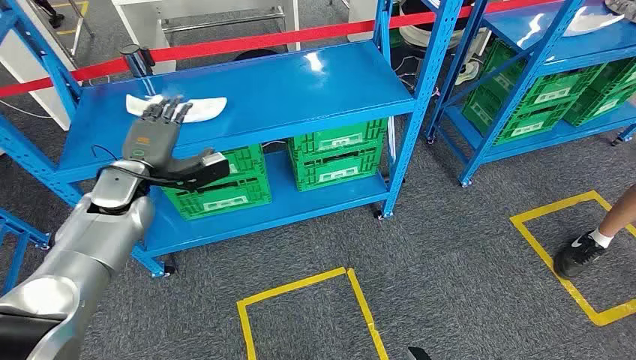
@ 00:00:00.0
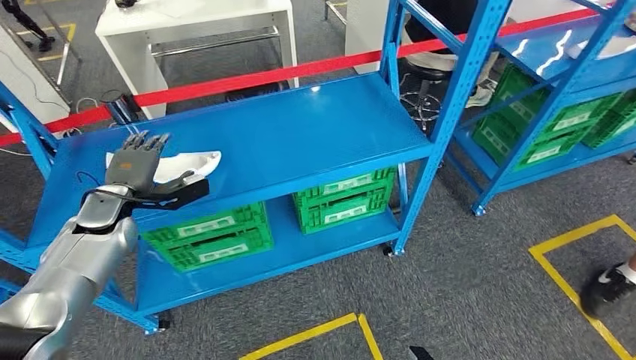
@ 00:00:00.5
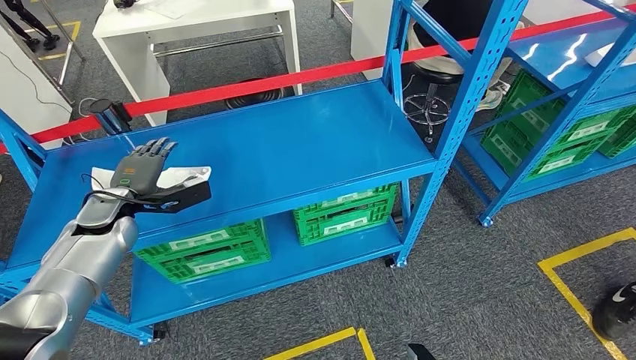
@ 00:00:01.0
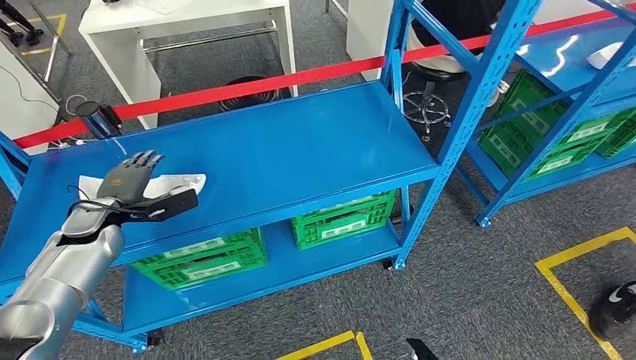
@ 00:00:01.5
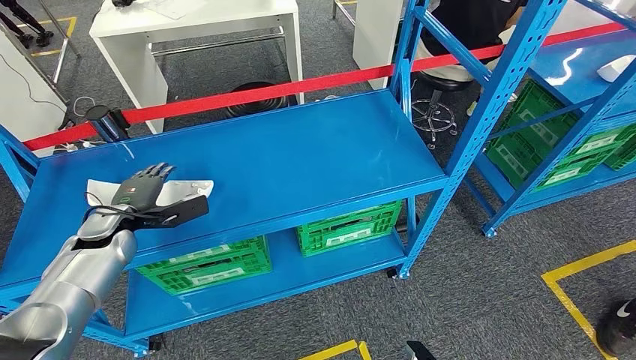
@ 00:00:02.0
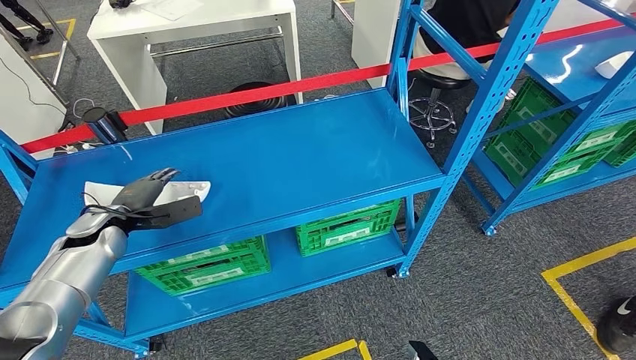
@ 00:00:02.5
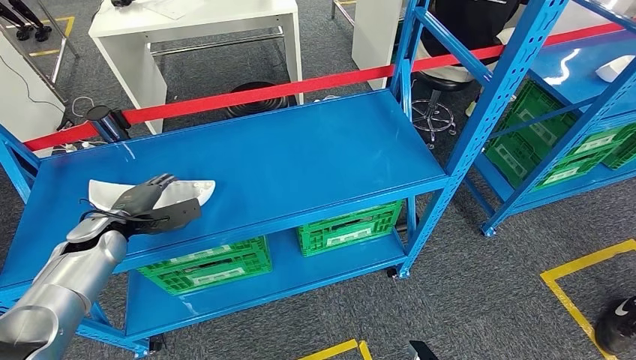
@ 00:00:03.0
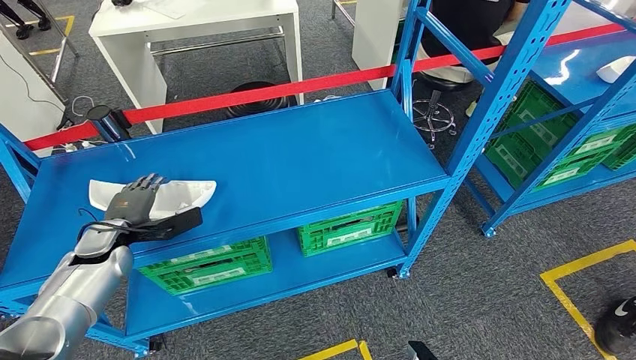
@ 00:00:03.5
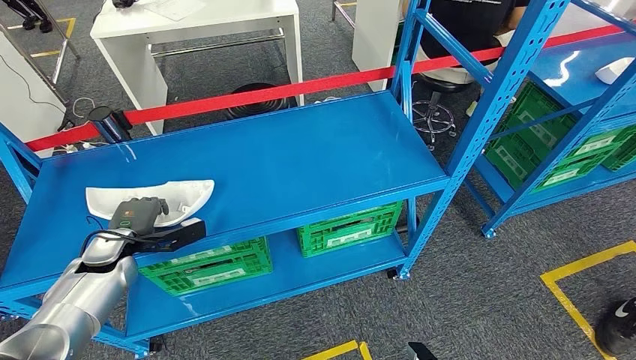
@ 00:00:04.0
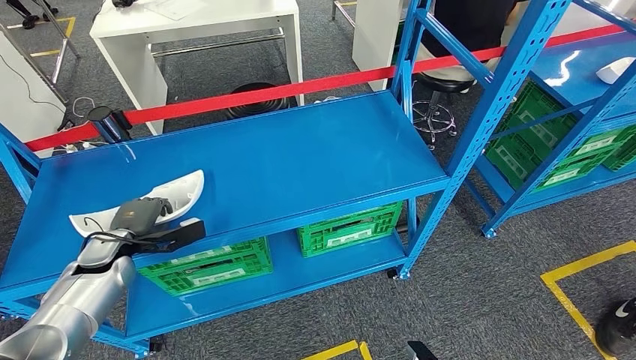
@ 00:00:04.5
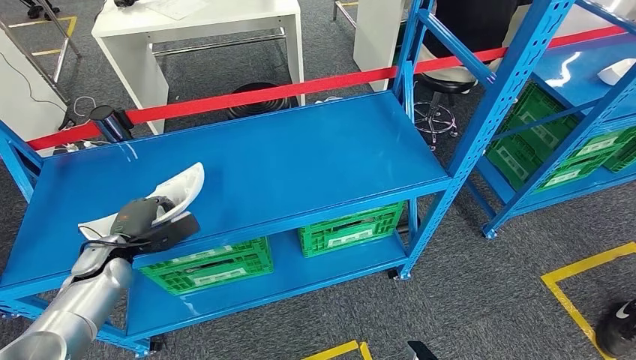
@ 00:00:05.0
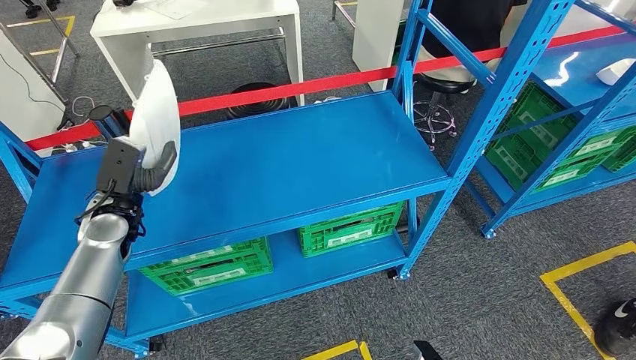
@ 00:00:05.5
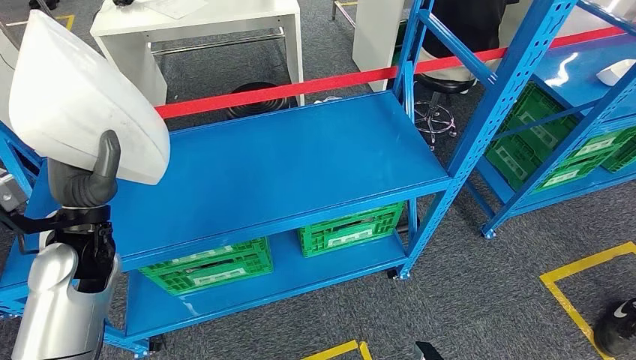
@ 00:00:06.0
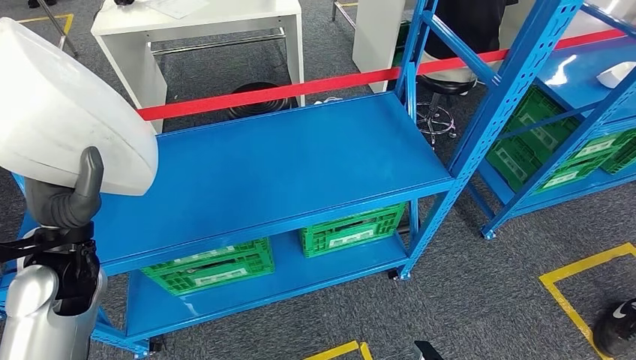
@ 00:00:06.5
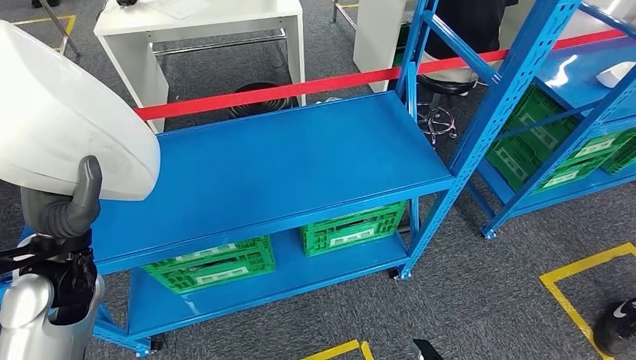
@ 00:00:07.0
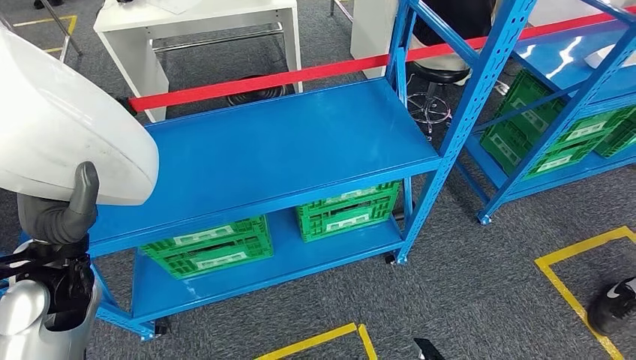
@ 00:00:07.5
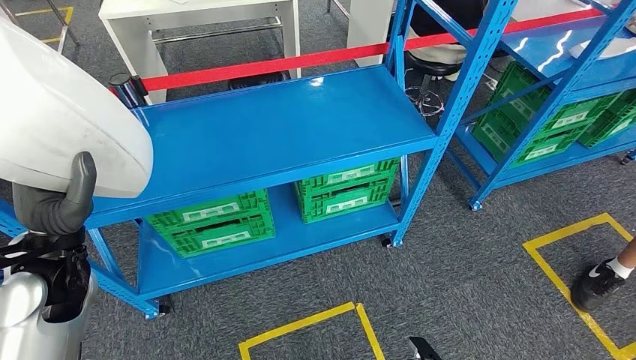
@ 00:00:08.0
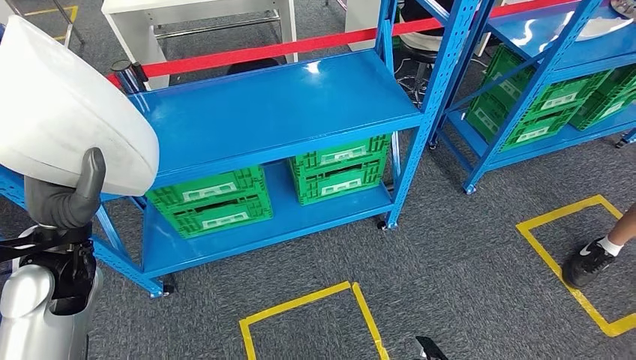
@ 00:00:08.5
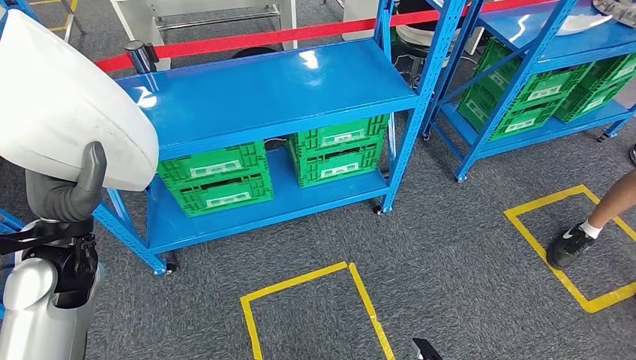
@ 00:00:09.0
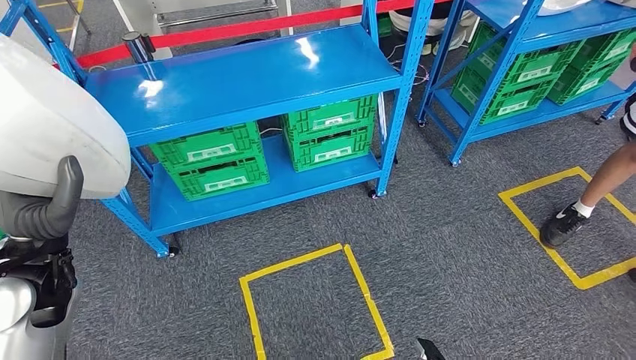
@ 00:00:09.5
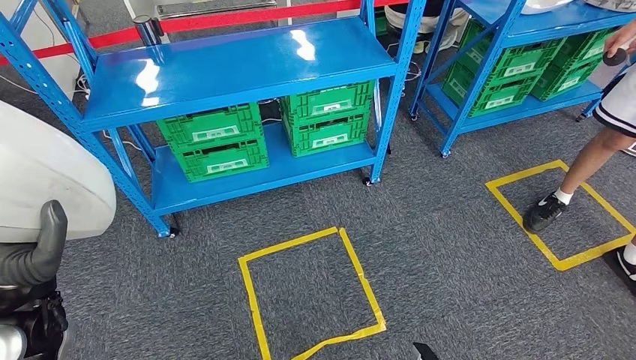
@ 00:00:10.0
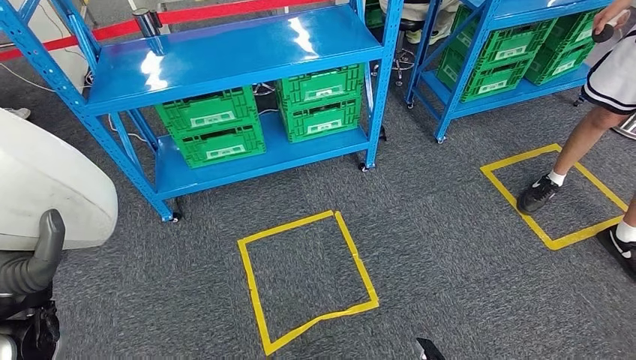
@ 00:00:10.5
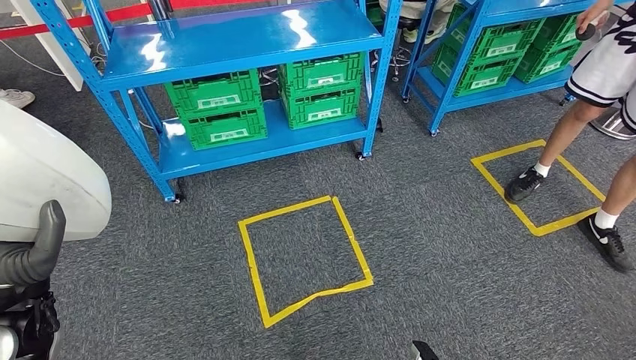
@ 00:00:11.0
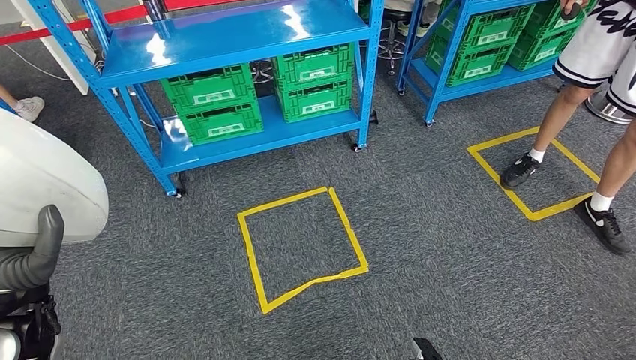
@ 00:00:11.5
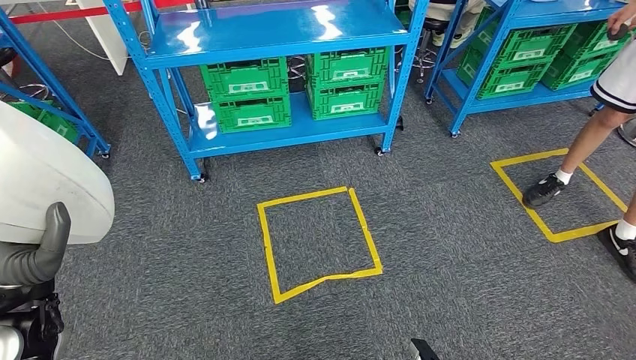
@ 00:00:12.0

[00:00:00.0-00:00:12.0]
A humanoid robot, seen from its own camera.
Step, 00:00:00.0 to 00:00:06.5: Pick up the small parts from the shelf.
00:00:02.0 to 00:00:04.0: The left hand shifts by approximately 5 cm.

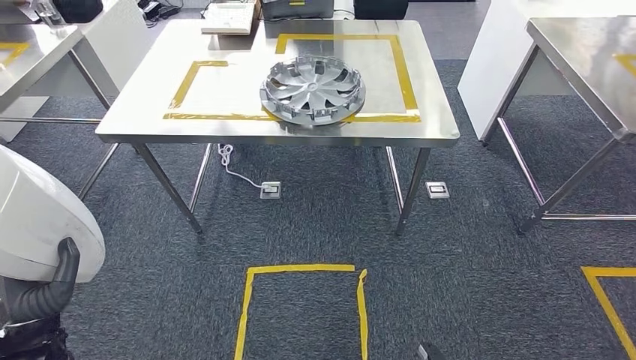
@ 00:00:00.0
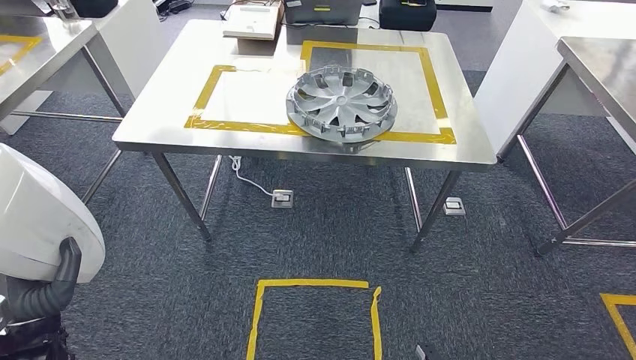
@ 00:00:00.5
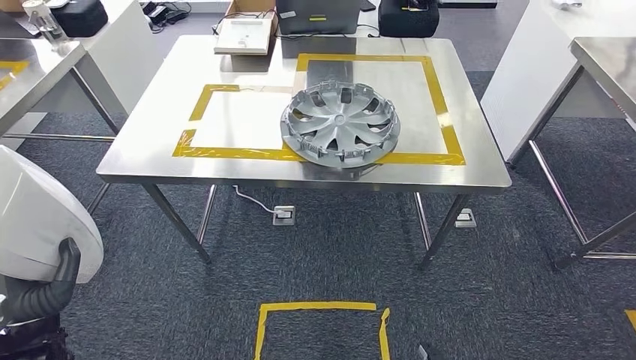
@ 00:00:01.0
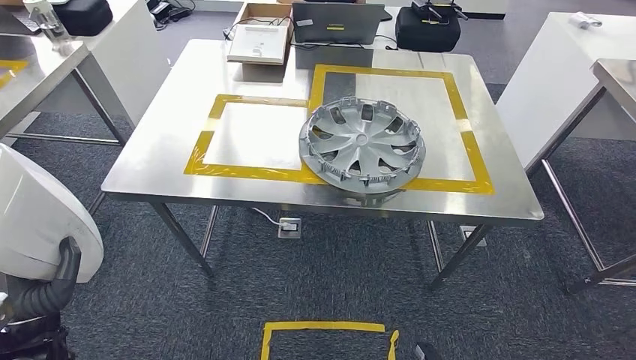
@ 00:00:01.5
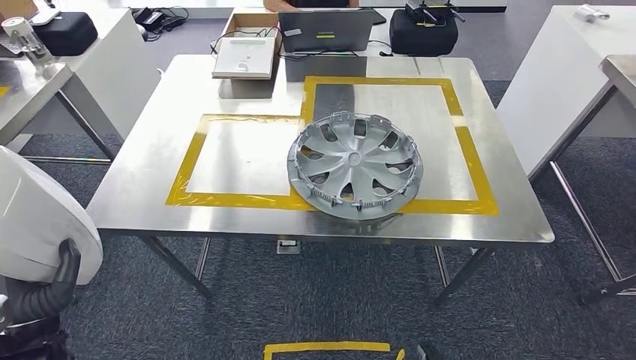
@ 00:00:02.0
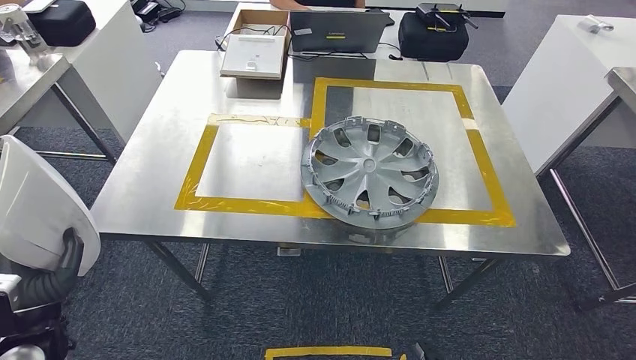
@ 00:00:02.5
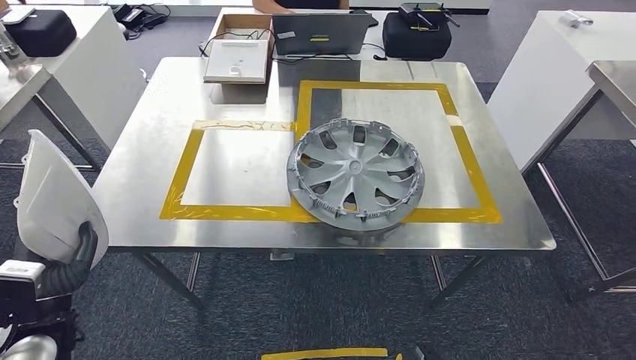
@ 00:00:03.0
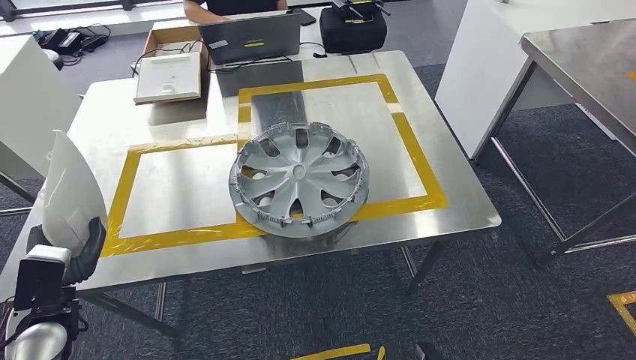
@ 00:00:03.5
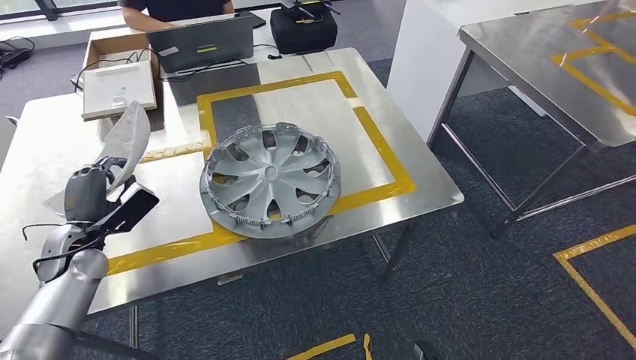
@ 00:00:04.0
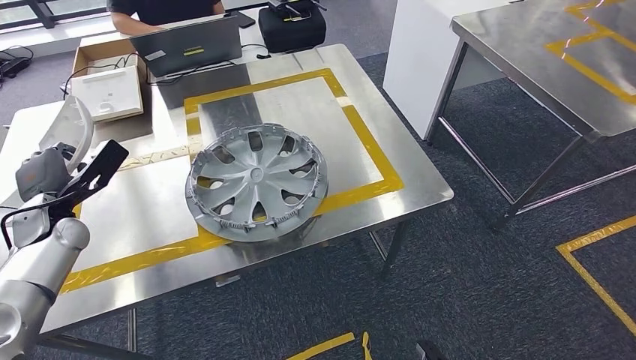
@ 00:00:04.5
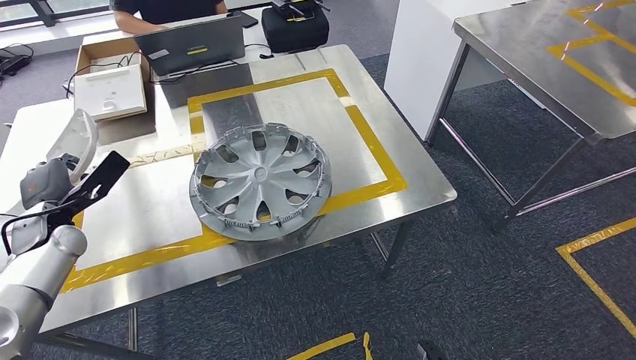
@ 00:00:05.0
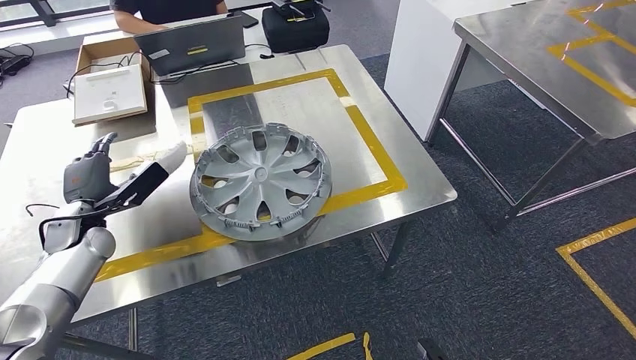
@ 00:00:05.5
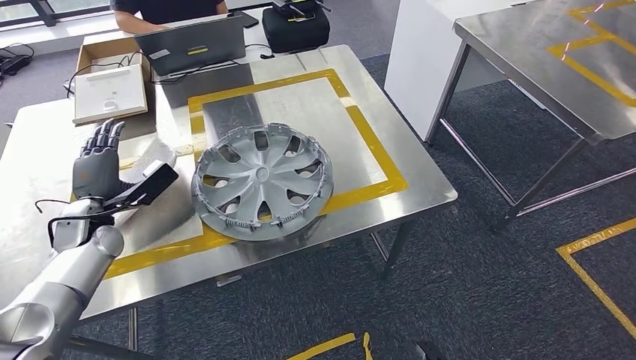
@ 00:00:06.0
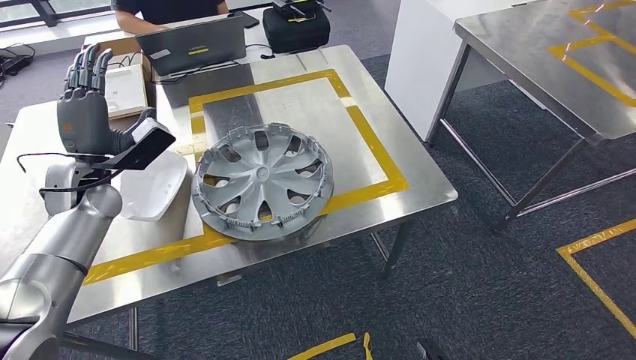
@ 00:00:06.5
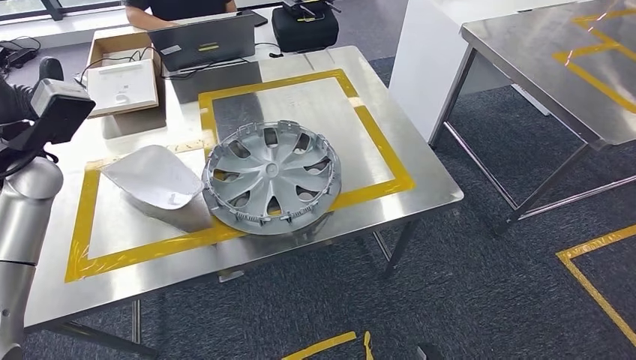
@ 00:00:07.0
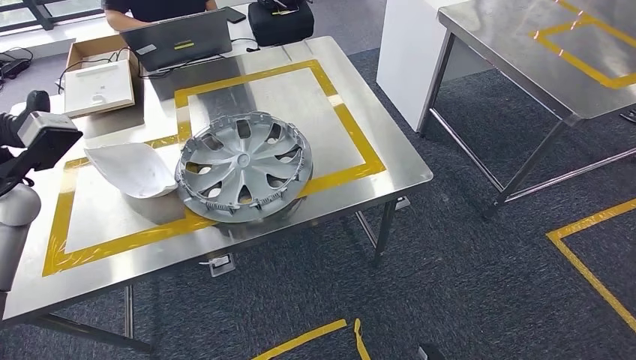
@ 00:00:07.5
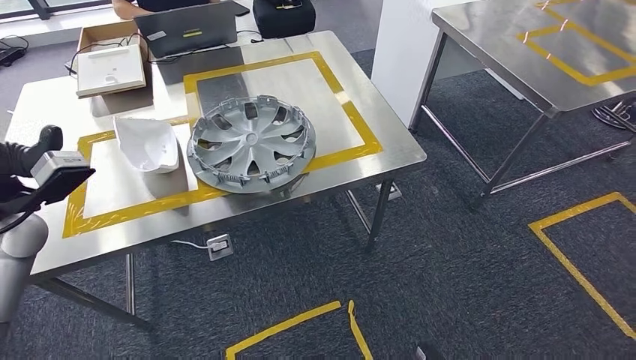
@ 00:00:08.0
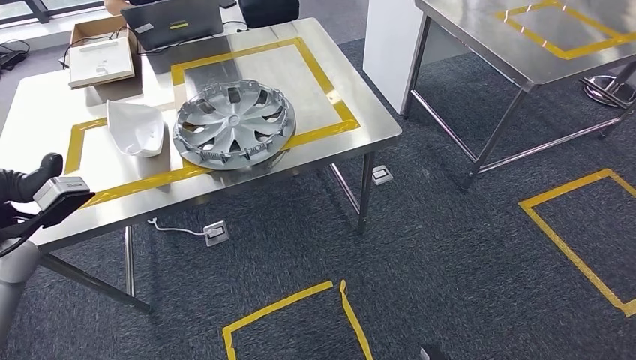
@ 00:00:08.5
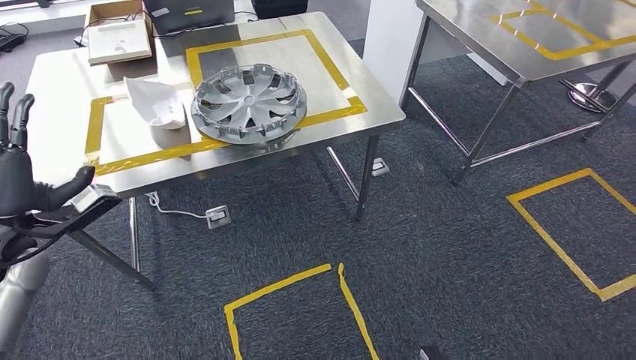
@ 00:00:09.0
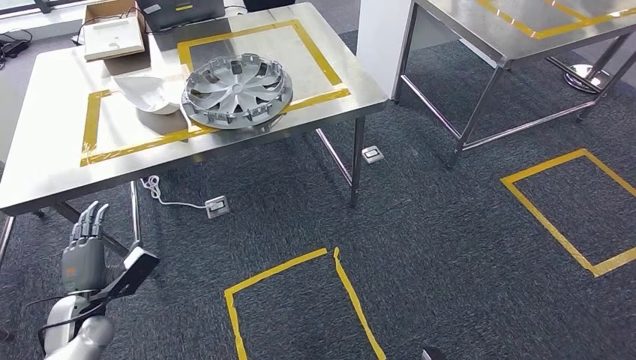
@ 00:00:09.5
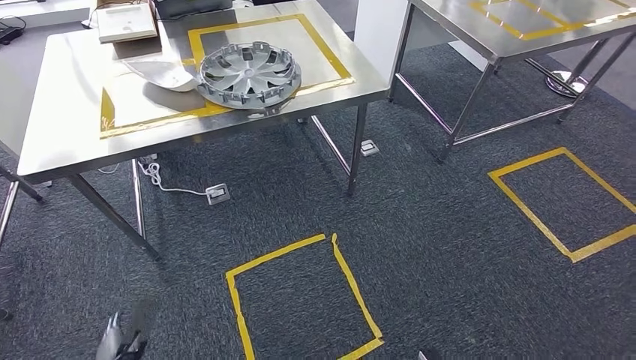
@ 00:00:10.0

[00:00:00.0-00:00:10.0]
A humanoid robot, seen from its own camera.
Step, 00:00:00.0 to 00:00:02.5: Move the small parts to the workbench.
Step, 00:00:03.5 to 00:00:06.5: Insert the small parts into the corresponding slots on the workbench.
Step, 00:00:08.5 to 00:00:10.0: Return to the initial position at the workbench.
